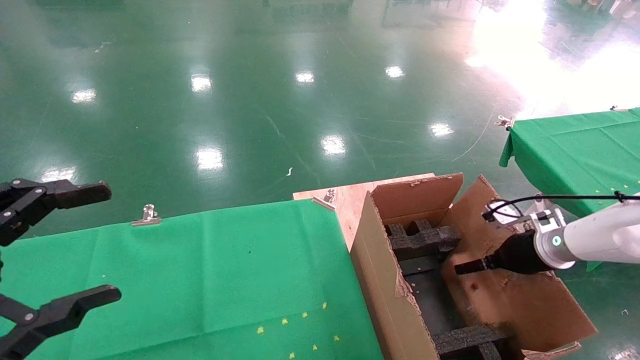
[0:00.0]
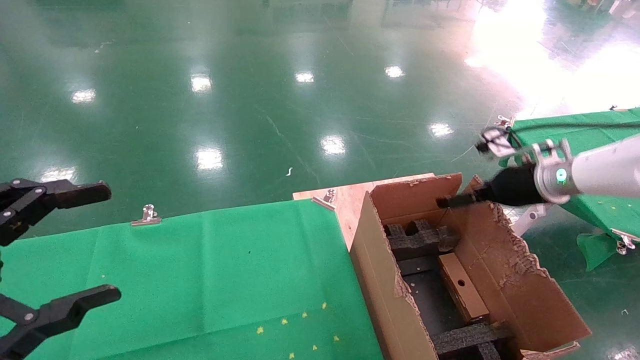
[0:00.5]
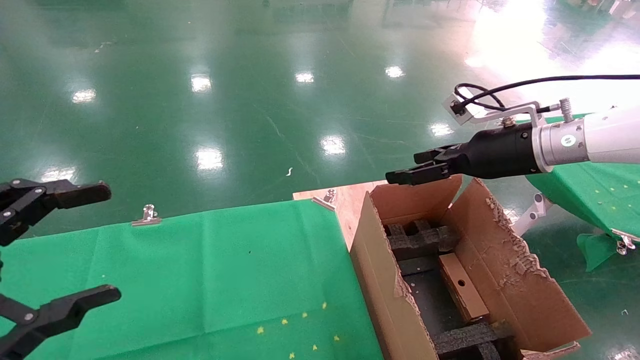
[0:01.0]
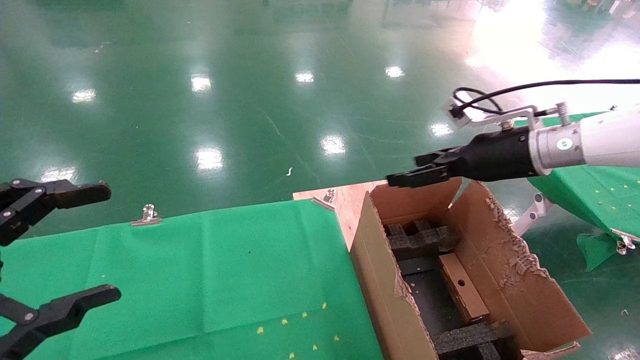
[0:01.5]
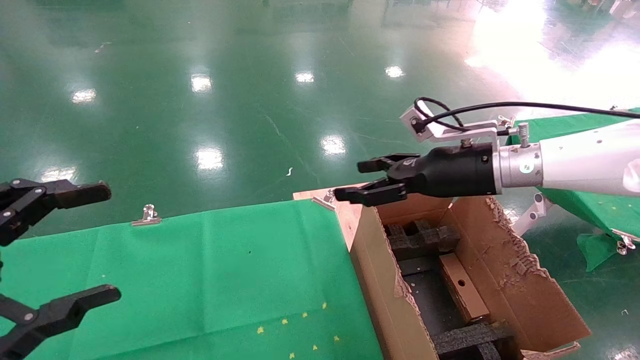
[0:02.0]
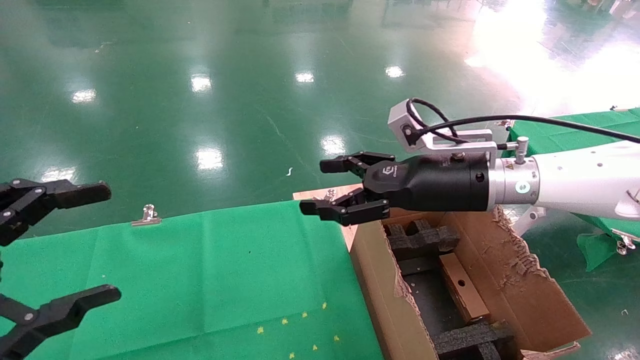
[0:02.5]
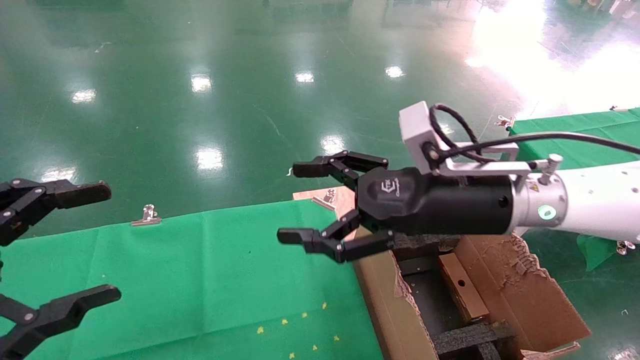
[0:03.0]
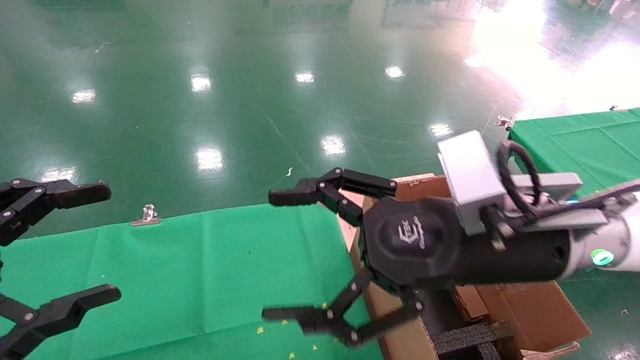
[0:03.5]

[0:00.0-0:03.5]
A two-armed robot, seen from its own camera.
Task of the whole recording: using a robotic arm to pick up a cardboard box and palace it the carton.
0:00.0 to 0:02.0: The right gripper goes approximately 20 cm to the left and upward.
0:02.0 to 0:03.5: The right gripper moves backward and to the left, some 15 cm.
